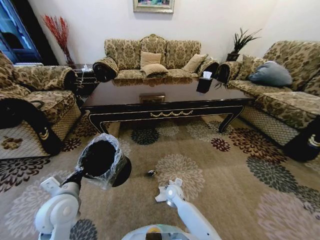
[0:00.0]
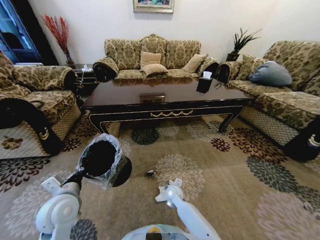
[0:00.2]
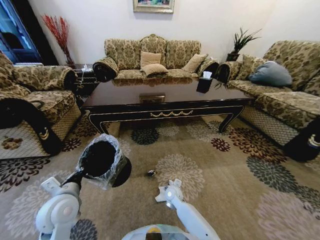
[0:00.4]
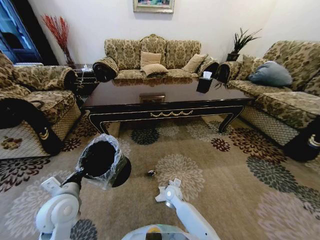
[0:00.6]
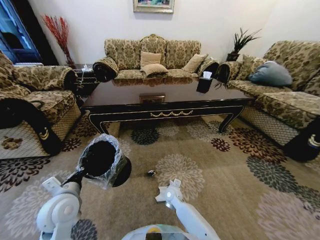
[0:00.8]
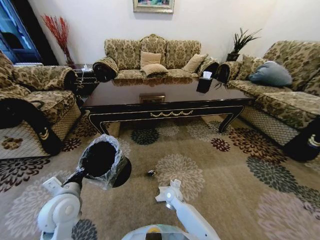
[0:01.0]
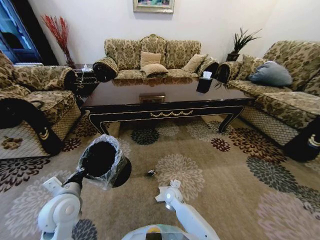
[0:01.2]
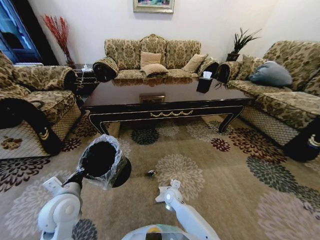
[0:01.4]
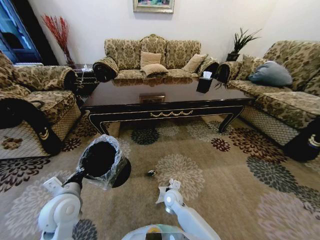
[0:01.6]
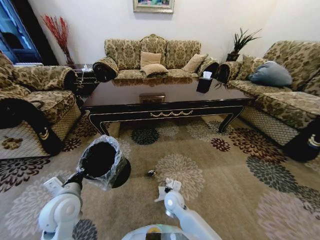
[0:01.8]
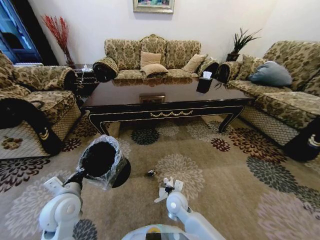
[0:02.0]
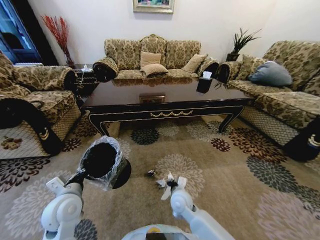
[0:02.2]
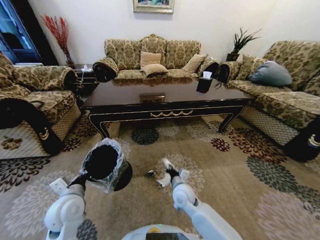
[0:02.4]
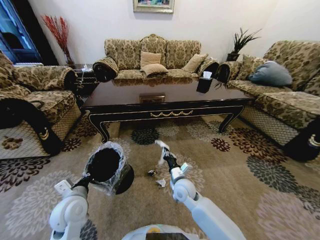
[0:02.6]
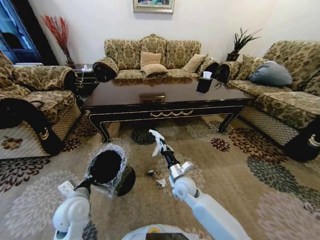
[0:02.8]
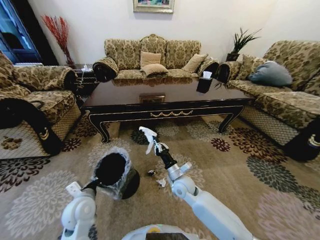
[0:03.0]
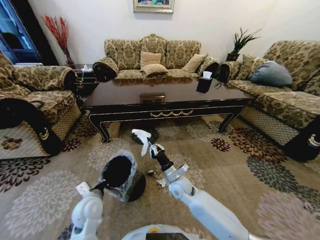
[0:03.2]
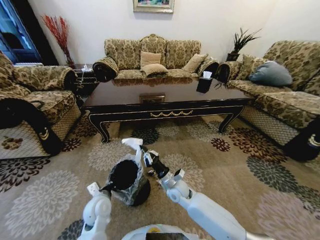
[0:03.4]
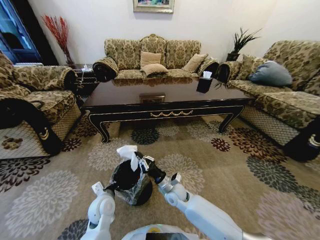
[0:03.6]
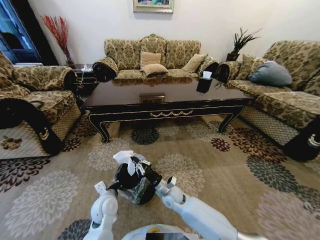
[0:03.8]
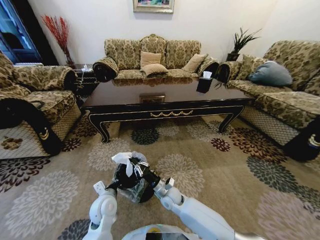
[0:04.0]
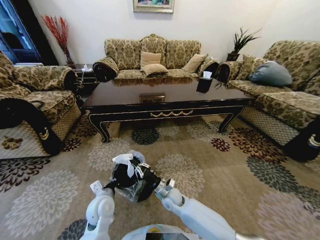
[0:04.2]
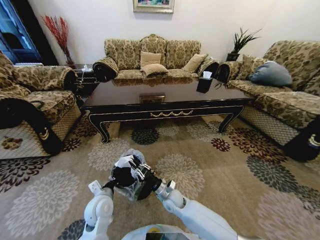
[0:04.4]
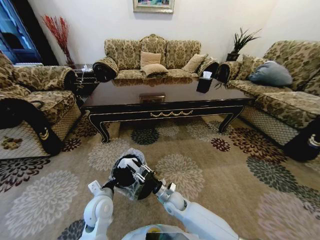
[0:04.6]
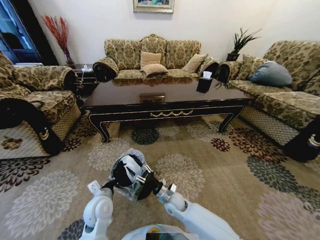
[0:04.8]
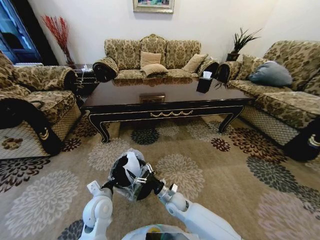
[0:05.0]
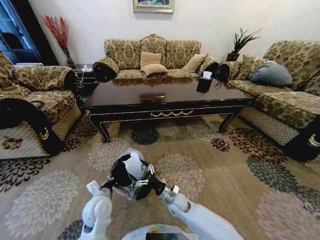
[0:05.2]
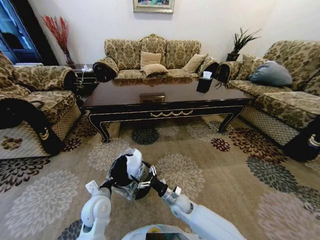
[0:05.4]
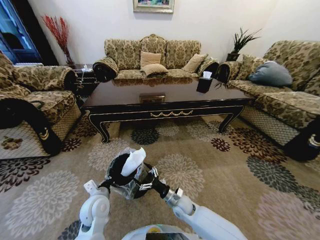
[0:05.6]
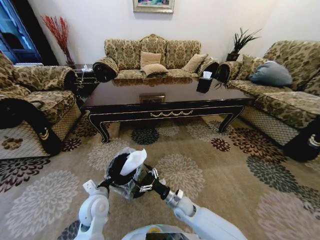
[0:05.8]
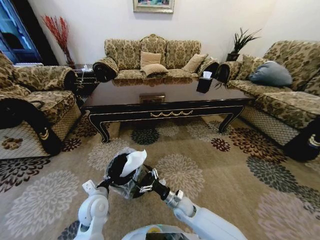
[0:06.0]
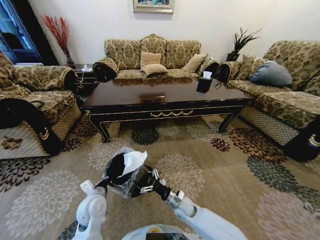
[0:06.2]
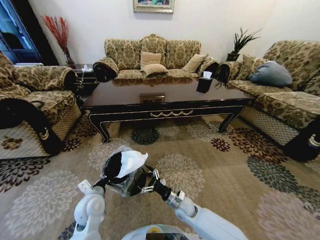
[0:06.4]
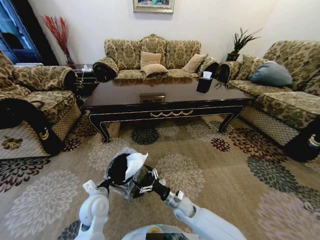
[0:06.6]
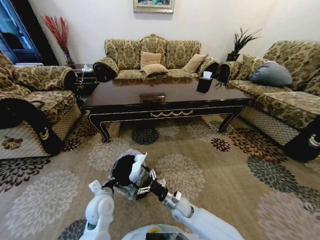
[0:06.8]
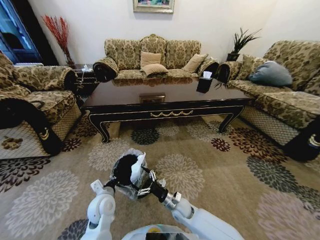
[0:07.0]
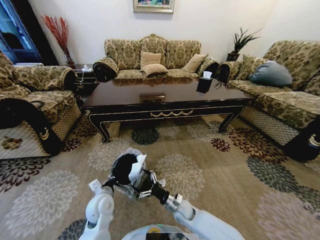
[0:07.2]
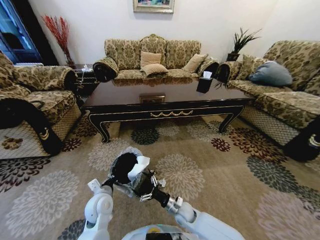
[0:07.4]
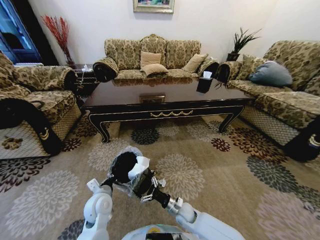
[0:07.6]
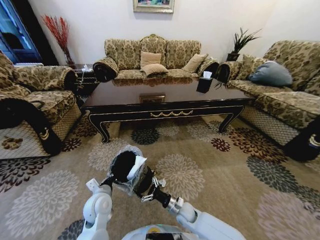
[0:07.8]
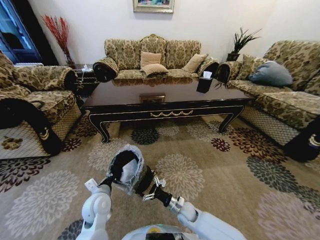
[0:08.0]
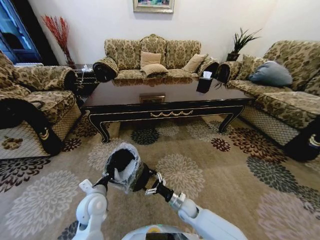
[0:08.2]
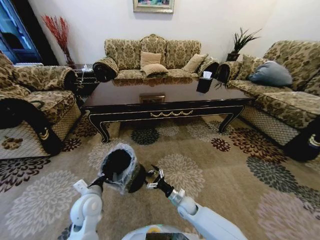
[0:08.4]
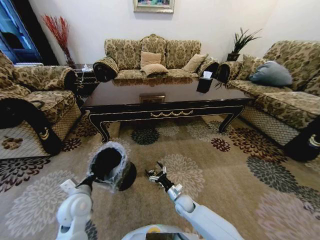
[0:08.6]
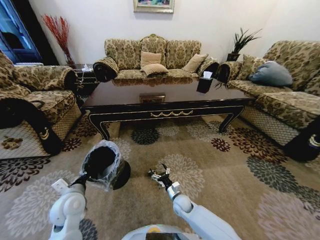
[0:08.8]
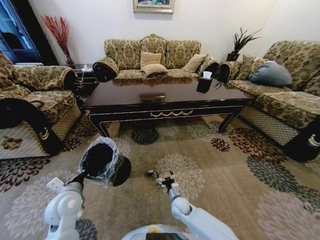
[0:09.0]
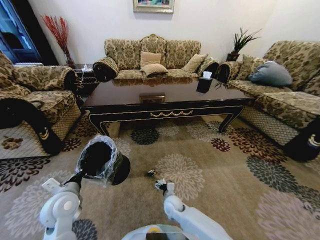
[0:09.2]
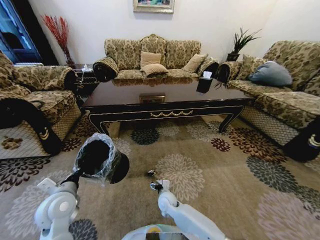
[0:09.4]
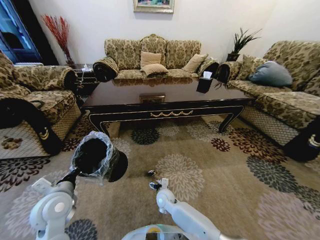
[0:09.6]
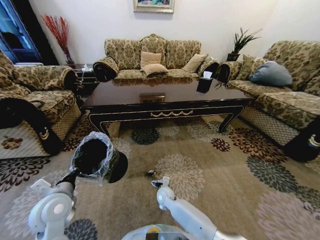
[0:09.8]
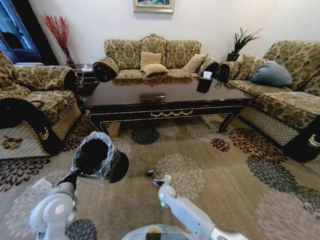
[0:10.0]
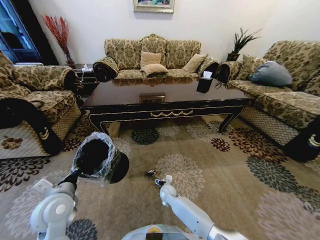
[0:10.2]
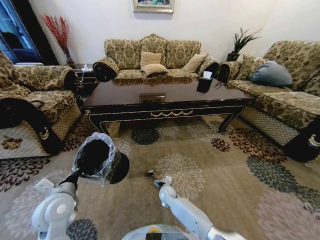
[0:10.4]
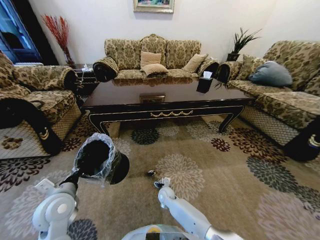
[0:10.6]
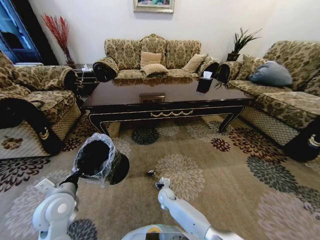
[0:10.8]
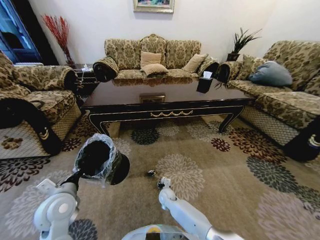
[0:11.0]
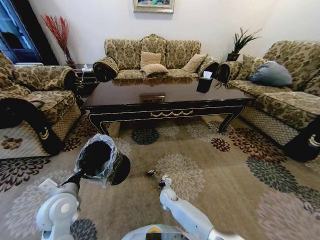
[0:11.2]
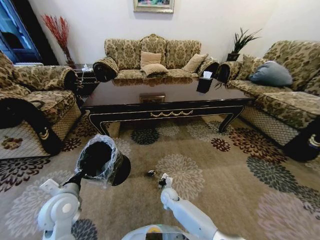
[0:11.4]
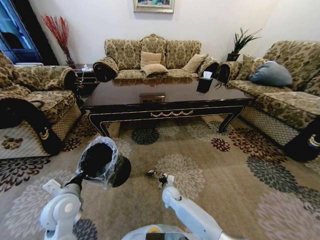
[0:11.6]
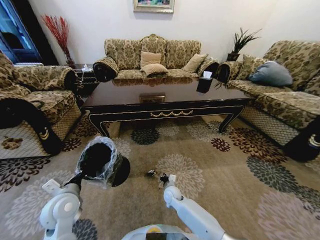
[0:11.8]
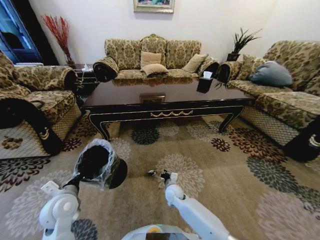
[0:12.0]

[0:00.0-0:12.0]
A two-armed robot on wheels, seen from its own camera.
Task of the whole recording: Move to the front of the table and pick up the trash from the floor, then place it into the trash bin.
0:00.0 to 0:01.6: The right gripper closes its fingers.
0:01.6 to 0:03.0: The right gripper shifts roughly 10 cm upward; the left gripper travels downward by about 5 cm.
0:03.0 to 0:04.4: The right gripper shifts about 10 cm downward. The left gripper moves to the right, some 5 cm.
0:04.4 to 0:06.0: The right gripper heads to the right, covering some 5 cm, and opens up.
0:06.0 to 0:07.6: There are only small adjustments of the grippers.
0:07.6 to 0:09.0: The left gripper moves to the left and upward, approximately 10 cm.
0:09.0 to 0:10.4: The right gripper is displaced forward and to the left by some 10 cm.
0:10.4 to 0:12.0: The right gripper heads upward, covering some 5 cm, and closes its fingers.

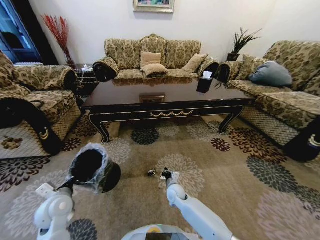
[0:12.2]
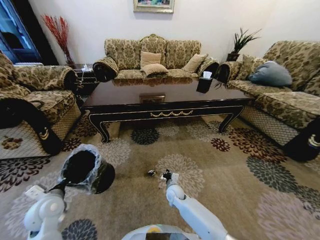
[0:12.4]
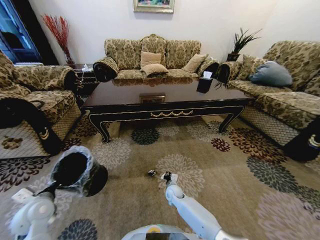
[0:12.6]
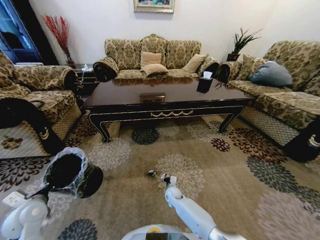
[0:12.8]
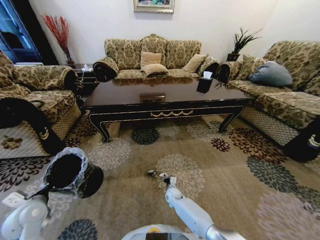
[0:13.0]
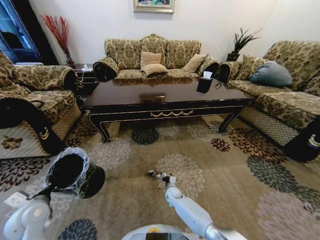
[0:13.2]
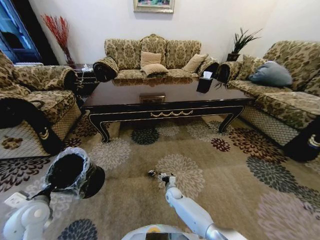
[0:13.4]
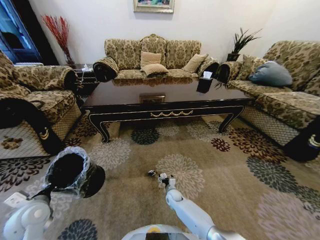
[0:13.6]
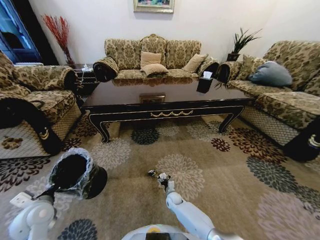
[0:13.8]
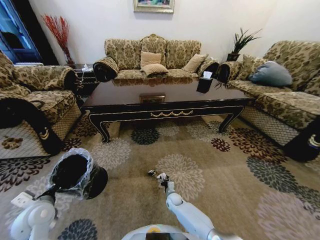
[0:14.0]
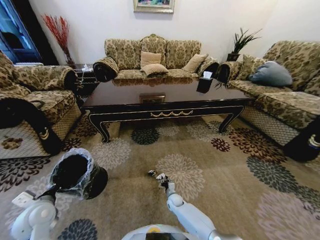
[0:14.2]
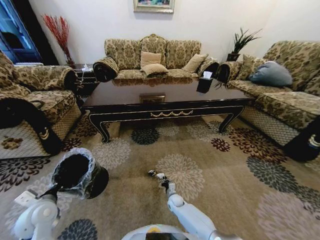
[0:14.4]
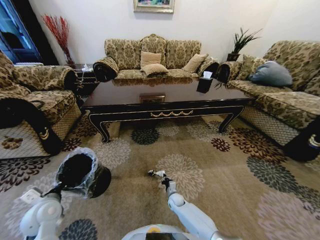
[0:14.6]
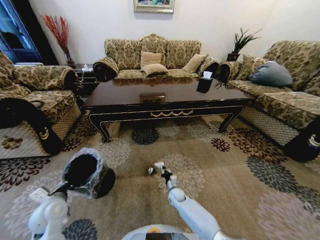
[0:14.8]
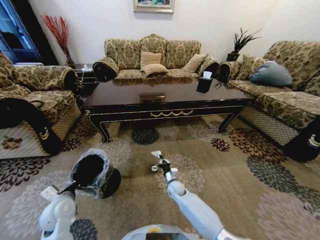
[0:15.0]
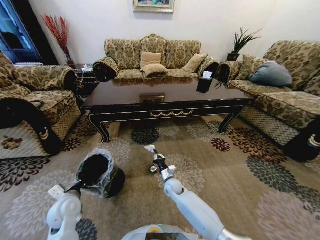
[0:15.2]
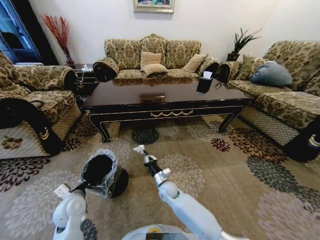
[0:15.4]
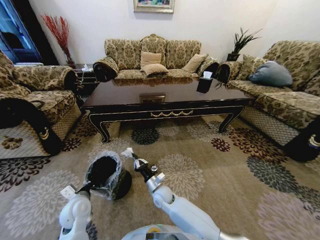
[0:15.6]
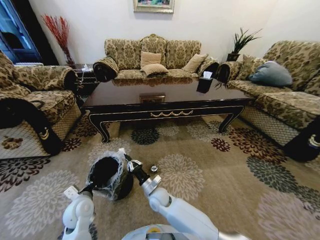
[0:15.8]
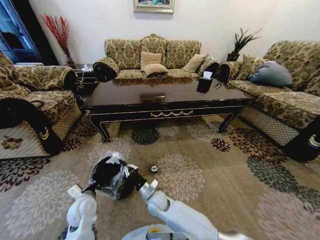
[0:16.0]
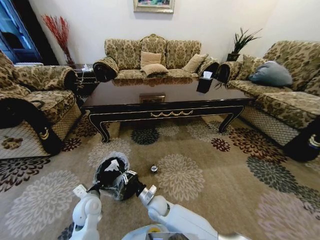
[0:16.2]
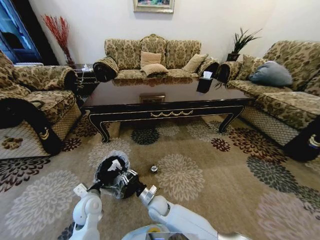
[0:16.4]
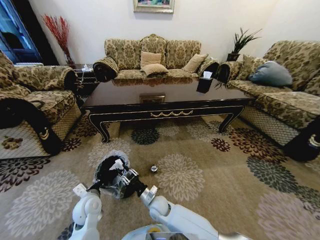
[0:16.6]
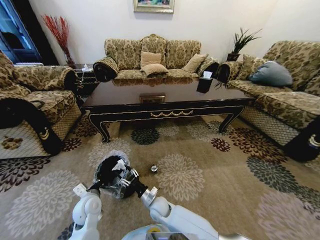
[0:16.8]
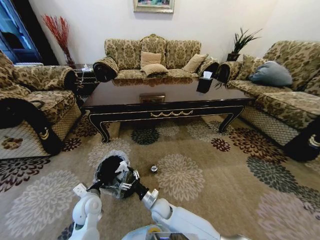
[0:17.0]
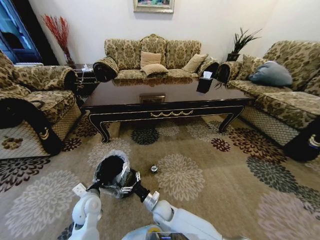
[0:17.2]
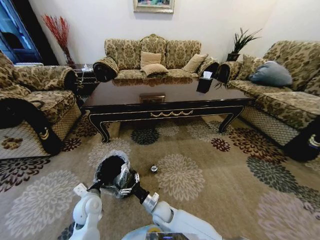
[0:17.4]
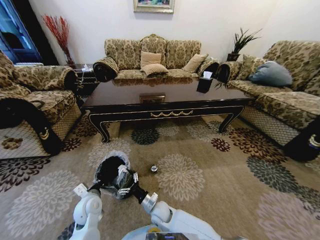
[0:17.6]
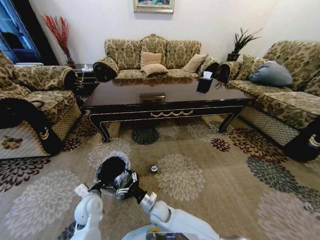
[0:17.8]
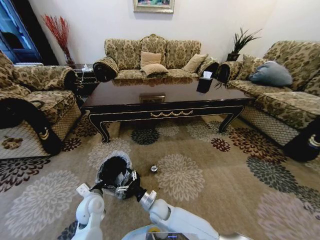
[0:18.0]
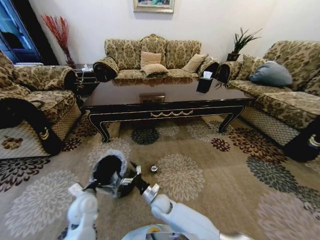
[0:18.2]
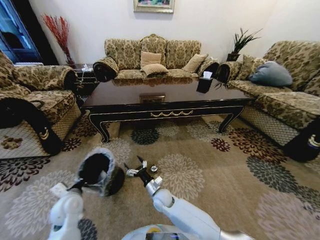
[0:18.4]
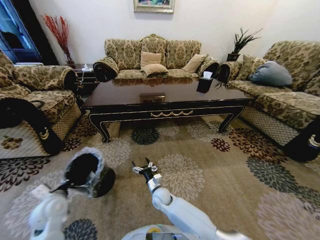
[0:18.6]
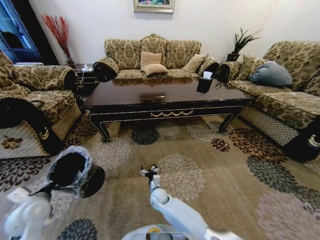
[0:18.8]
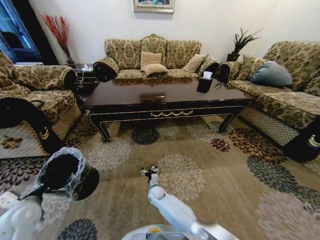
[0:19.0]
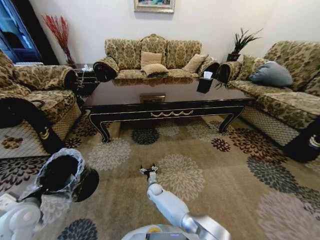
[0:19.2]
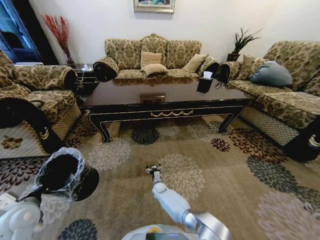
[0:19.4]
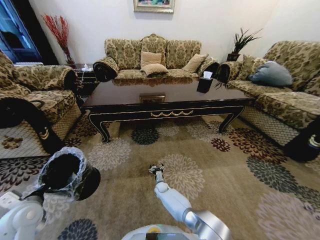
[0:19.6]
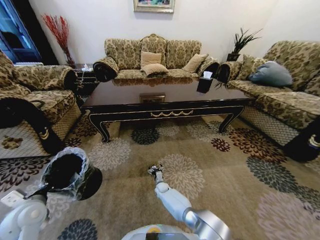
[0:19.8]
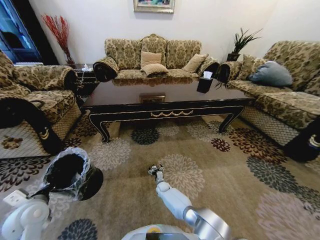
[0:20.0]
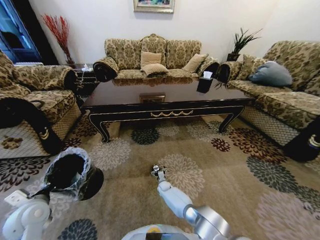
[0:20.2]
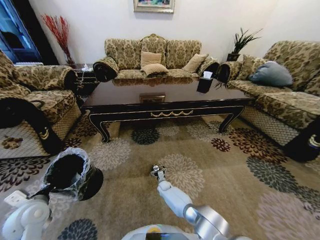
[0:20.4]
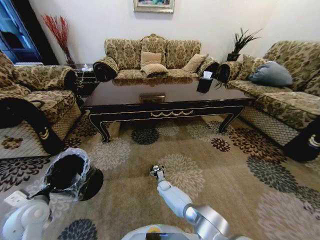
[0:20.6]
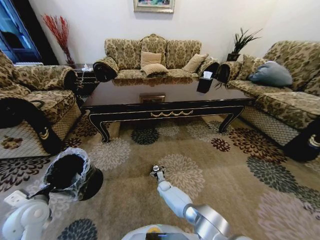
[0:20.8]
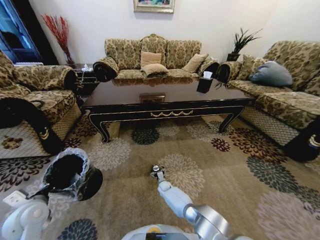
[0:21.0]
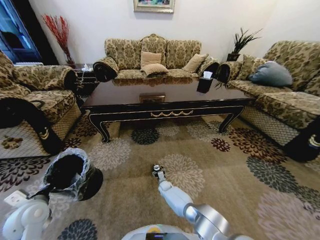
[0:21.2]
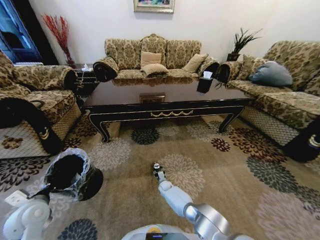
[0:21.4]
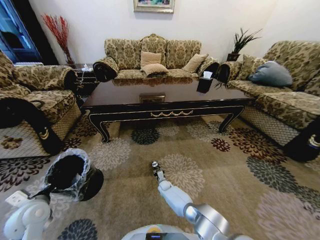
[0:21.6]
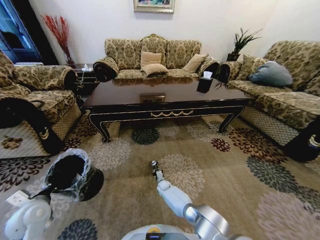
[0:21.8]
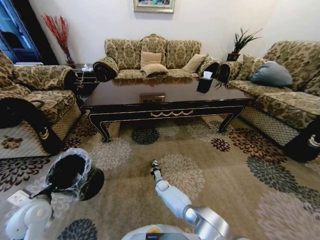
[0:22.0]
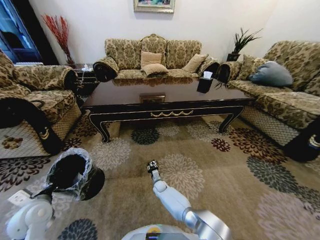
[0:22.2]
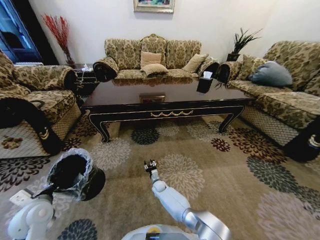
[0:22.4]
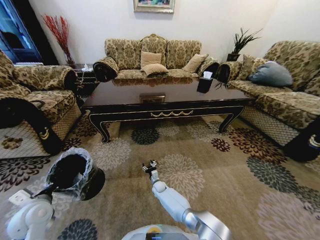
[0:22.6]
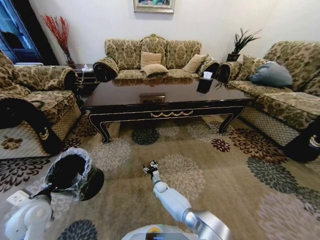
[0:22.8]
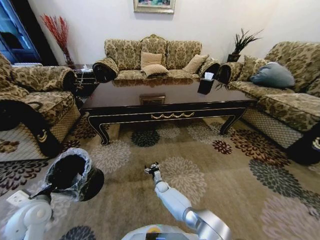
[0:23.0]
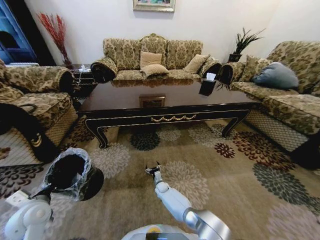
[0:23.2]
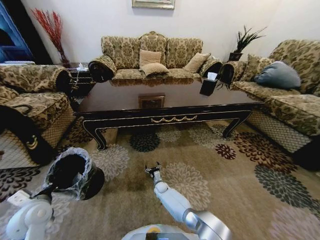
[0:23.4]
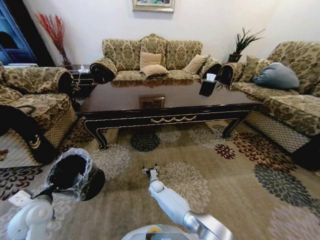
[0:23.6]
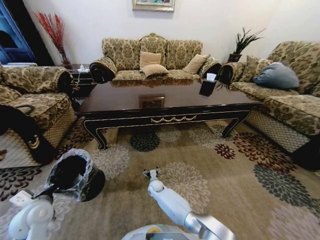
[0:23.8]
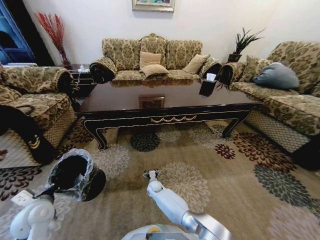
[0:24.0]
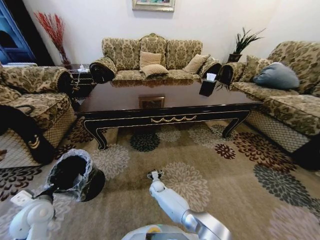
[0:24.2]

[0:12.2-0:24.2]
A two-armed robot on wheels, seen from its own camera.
Task of the whole recording: Move to the front of the table and pick up the trash from the floor, then place it into the trash bin.
0:12.2 to 0:13.8: The left gripper heads to the left, covering approximately 5 cm, while the right gripper is displaced downward by roughly 15 cm, and opens its fingers.
0:13.8 to 0:15.2: The right gripper heads upward, covering some 15 cm, and closes; the left gripper goes roughly 5 cm to the right.
0:15.2 to 0:16.6: The left gripper goes approximately 5 cm to the right. The right gripper travels backward and to the left by roughly 10 cm, and opens up.
0:16.6 to 0:18.2: The right gripper opens its fingers.
0:18.2 to 0:19.8: The left gripper heads to the left and upward, covering about 15 cm; the right gripper shifts approximately 20 cm downward and forward.
0:19.8 to 0:21.2: The grippers stay close to where they were, moving slightly.
0:21.2 to 0:22.6: The right gripper moves about 5 cm, and closes, then reopens.
